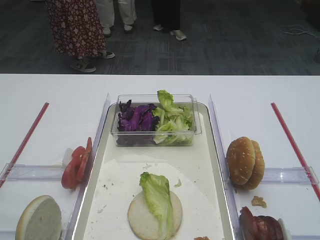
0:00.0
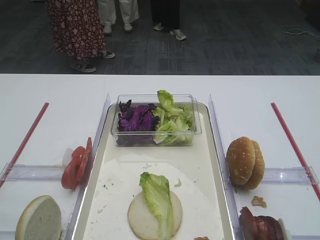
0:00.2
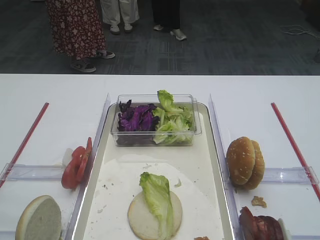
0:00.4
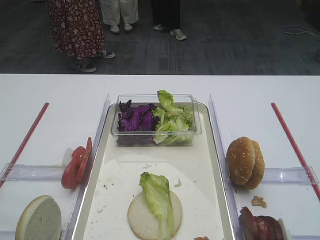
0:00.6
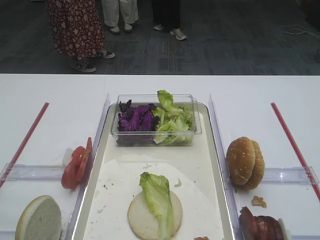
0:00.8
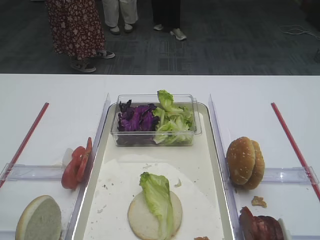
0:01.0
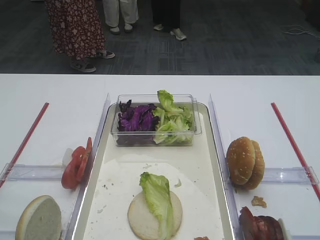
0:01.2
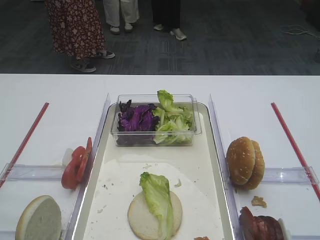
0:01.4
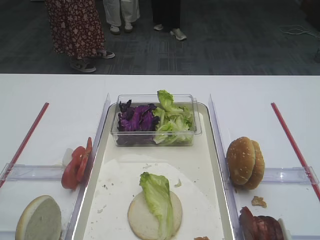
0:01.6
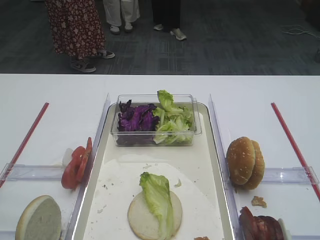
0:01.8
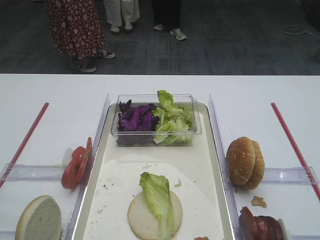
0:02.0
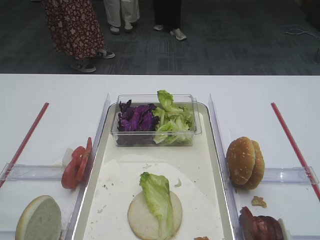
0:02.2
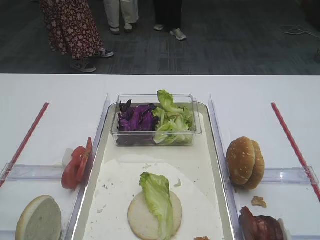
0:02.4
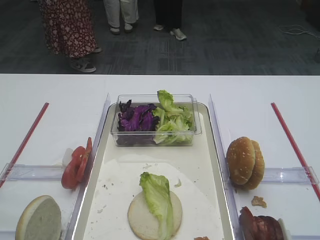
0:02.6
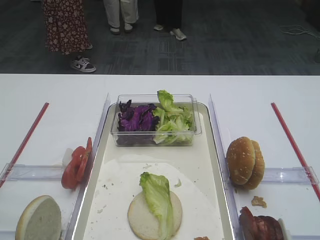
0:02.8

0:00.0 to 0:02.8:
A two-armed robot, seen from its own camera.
0:00.0 to 0:02.8: Both grippers stay about where they are.

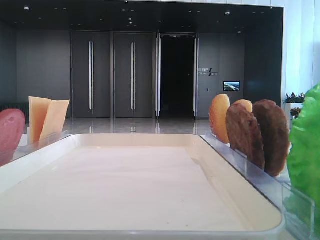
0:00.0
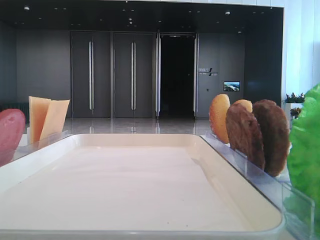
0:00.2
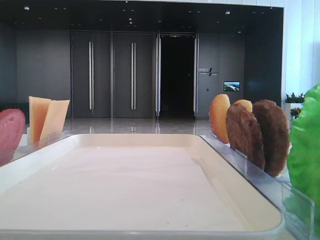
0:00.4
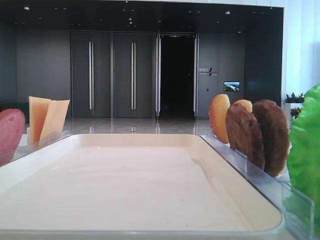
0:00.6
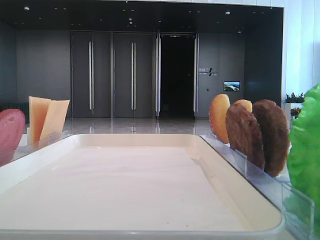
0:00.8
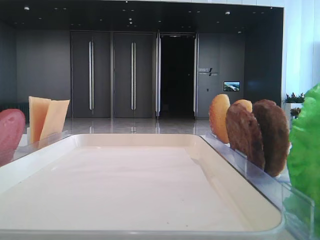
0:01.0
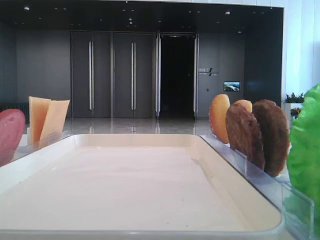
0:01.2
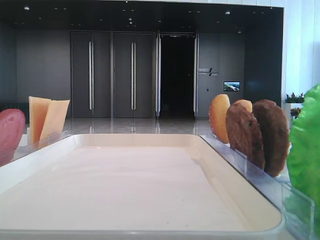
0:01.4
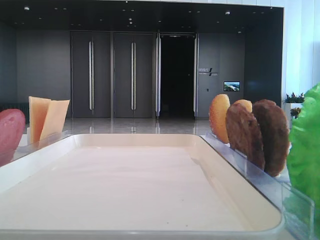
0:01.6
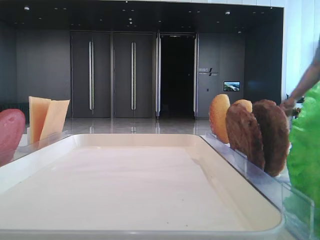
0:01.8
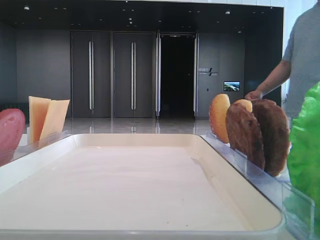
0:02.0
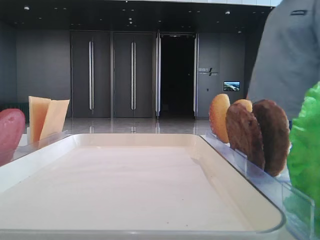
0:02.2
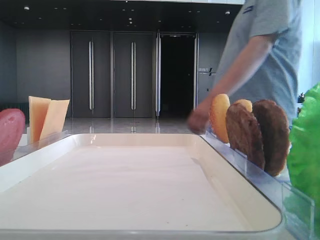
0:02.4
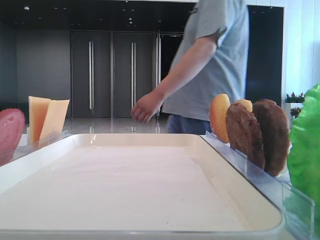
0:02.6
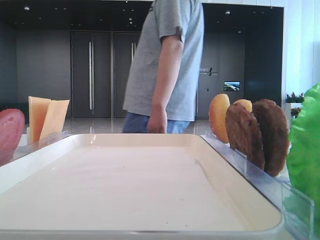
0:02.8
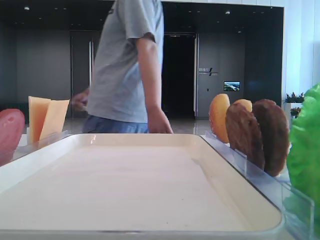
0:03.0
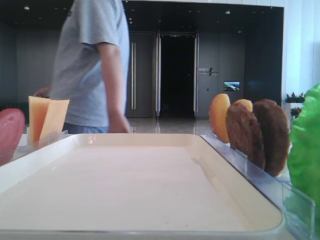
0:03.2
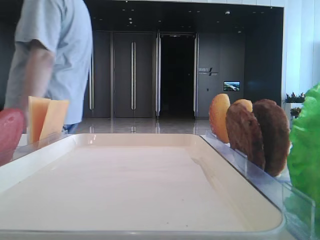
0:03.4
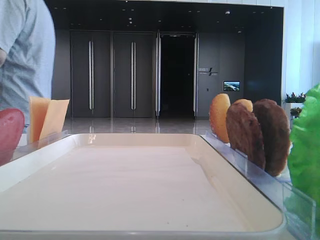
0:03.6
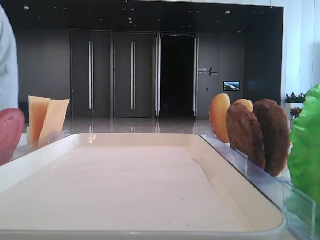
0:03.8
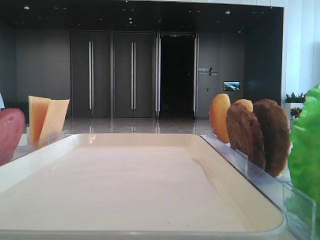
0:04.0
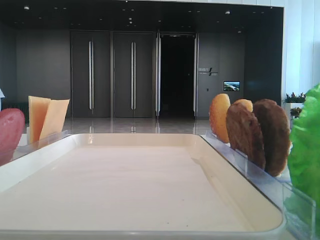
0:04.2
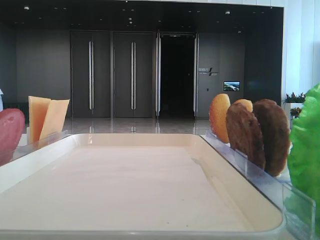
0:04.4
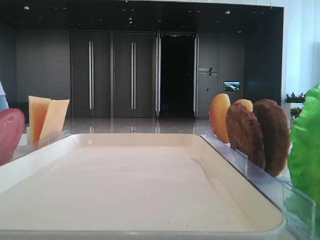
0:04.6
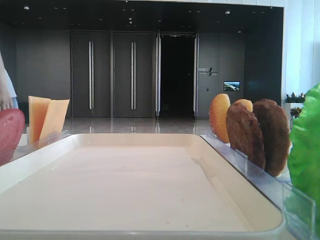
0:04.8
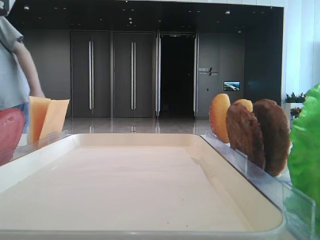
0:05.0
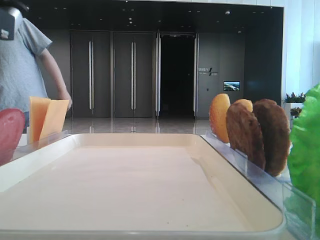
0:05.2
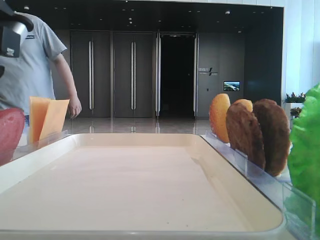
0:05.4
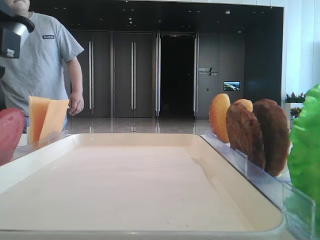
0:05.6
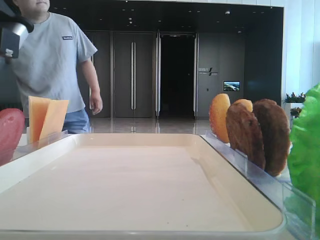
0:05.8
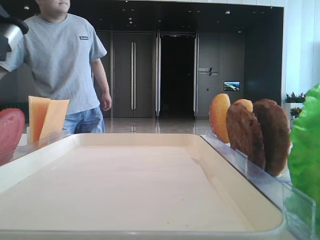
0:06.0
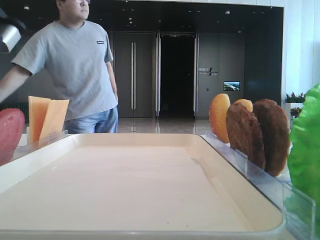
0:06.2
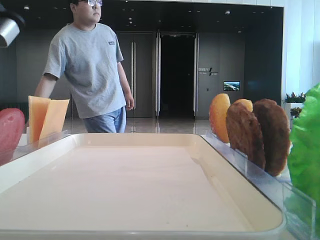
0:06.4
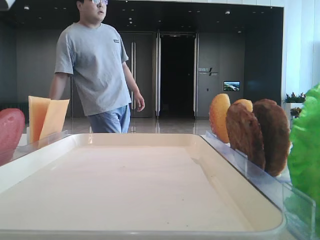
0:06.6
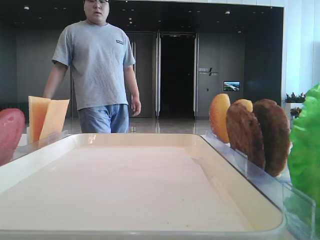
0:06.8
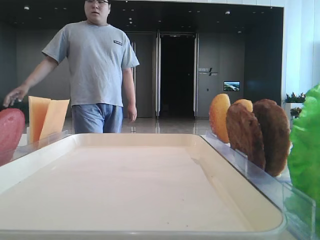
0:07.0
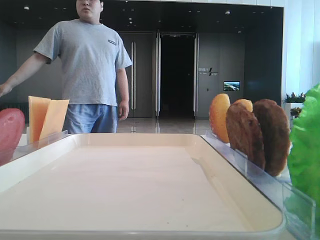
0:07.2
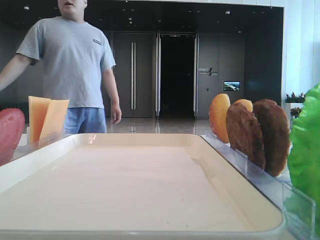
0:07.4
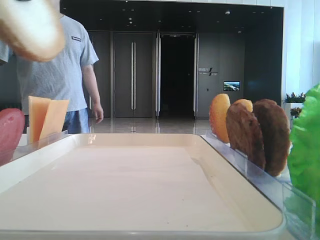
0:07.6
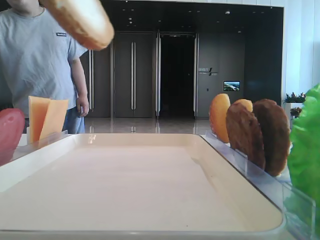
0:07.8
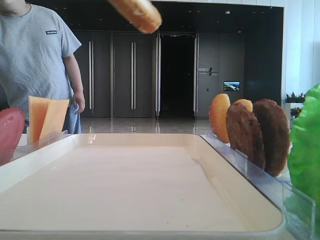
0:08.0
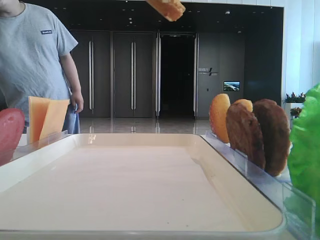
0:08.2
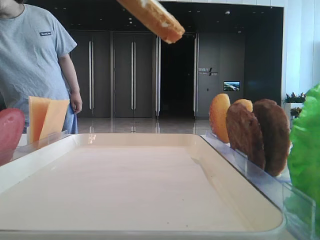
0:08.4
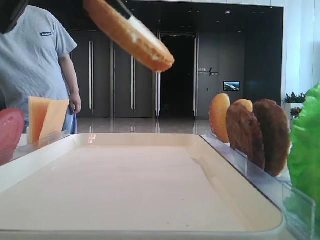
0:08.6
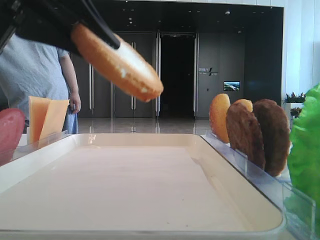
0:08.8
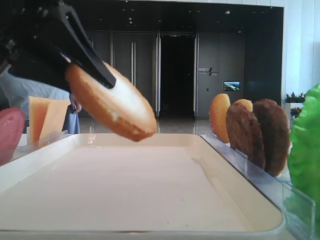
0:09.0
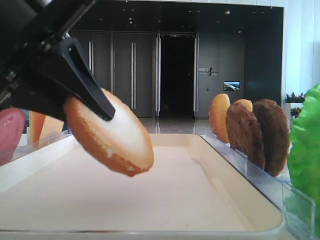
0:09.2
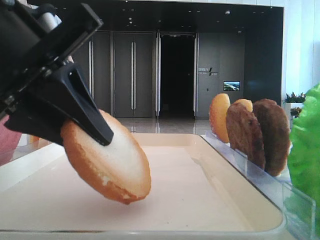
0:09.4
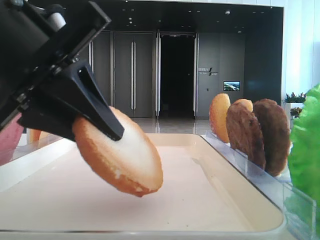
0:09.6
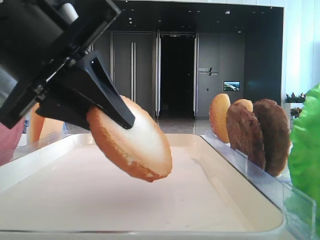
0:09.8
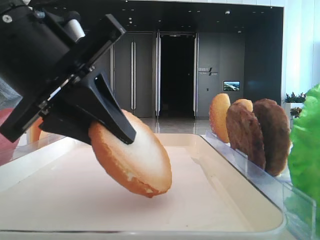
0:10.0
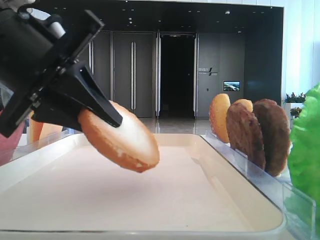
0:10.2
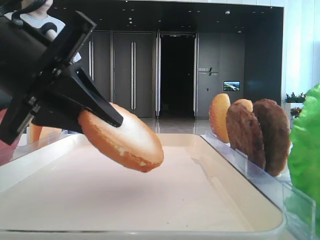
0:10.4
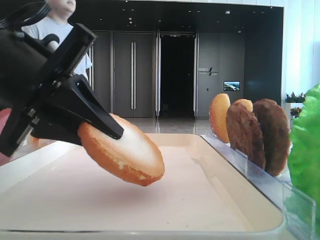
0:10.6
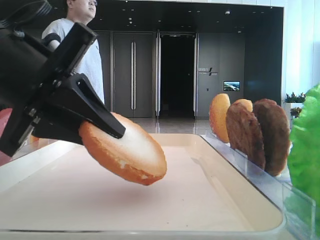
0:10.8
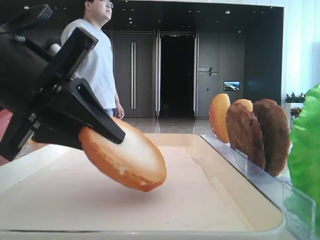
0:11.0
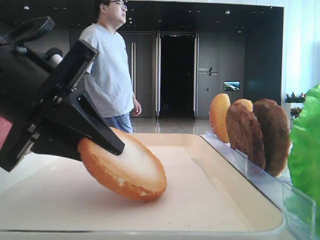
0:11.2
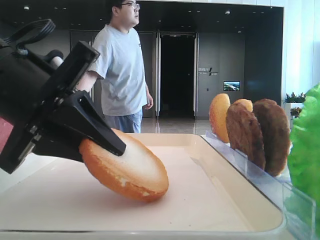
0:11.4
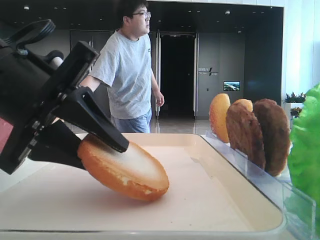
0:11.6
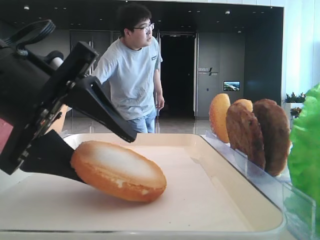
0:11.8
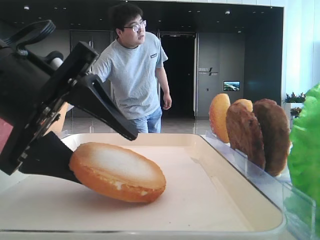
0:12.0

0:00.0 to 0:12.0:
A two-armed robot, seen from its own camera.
Step, 0:00.0 to 0:05.0: Pick up the bottom bread with the left hand.
0:01.6 to 0:03.0: The left gripper goes about 15 cm forward.
0:03.0 to 0:04.4: The left gripper goes approximately 10 cm to the right.
0:04.4 to 0:06.0: The left gripper moves downward, some 10 cm, and closes.
0:06.0 to 0:07.6: The left gripper is displaced upward by approximately 10 cm.
0:07.6 to 0:09.0: The left gripper heads downward, covering approximately 10 cm.
0:09.0 to 0:10.4: The left gripper ends up some 5 cm from where it was.
0:10.4 to 0:12.0: The left gripper opens.

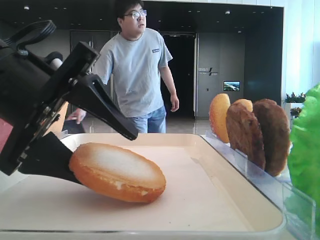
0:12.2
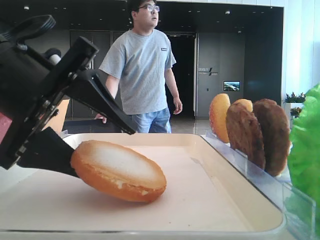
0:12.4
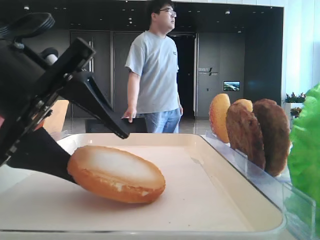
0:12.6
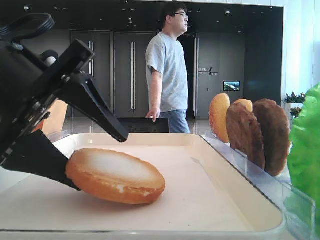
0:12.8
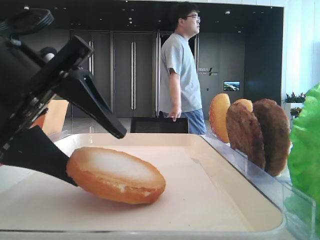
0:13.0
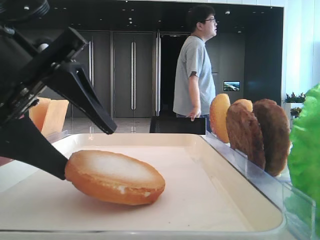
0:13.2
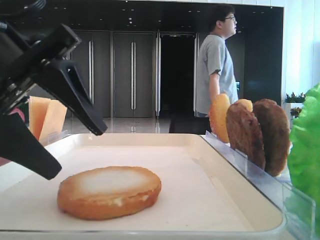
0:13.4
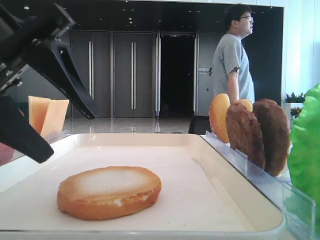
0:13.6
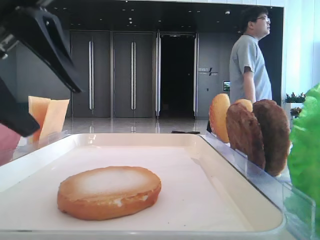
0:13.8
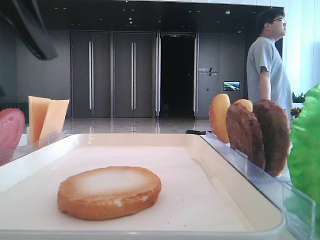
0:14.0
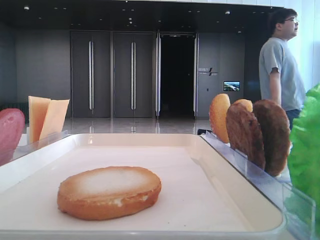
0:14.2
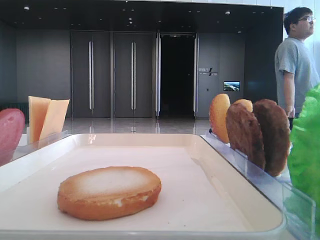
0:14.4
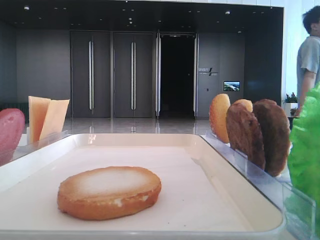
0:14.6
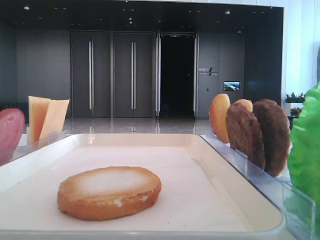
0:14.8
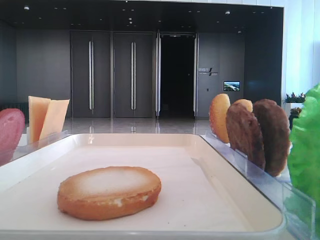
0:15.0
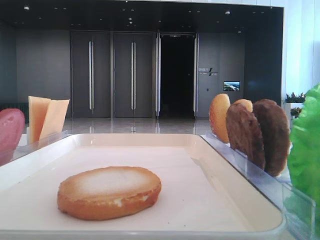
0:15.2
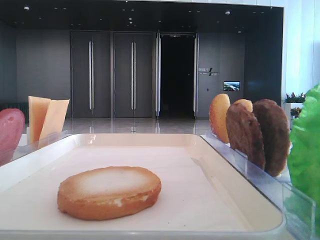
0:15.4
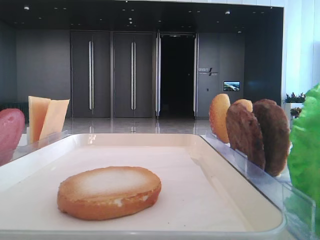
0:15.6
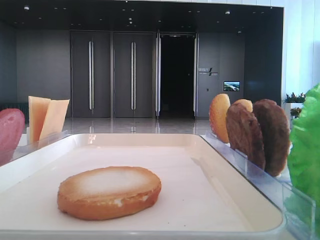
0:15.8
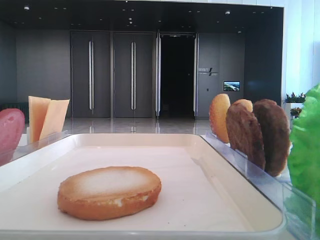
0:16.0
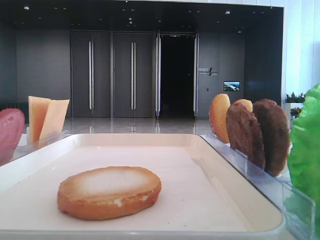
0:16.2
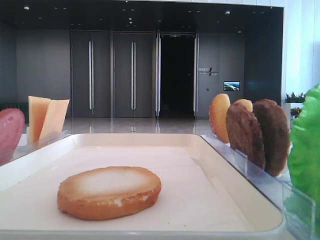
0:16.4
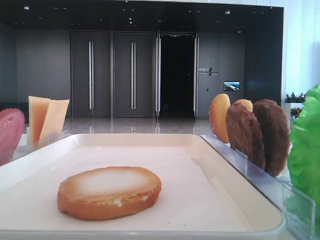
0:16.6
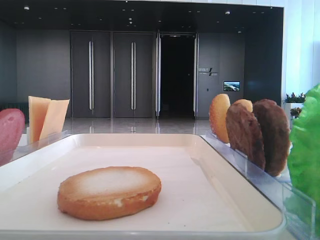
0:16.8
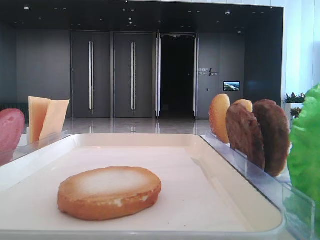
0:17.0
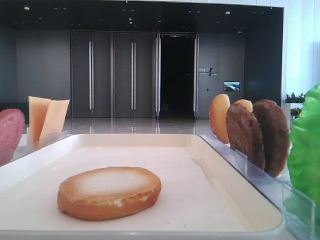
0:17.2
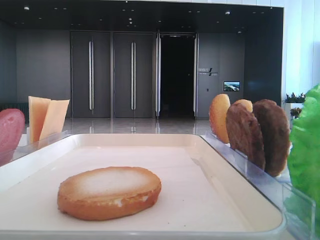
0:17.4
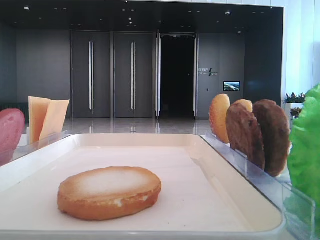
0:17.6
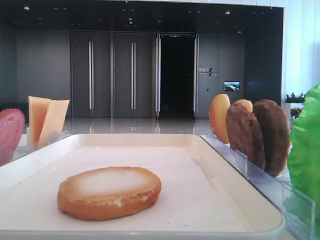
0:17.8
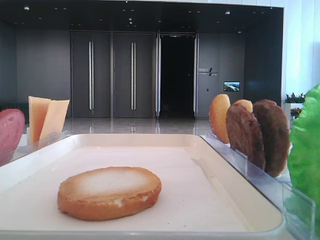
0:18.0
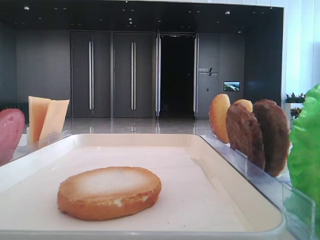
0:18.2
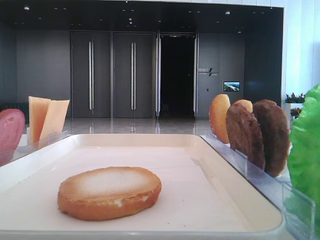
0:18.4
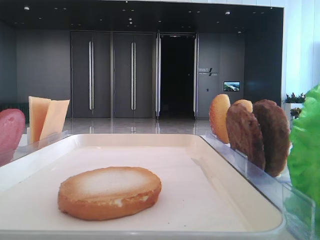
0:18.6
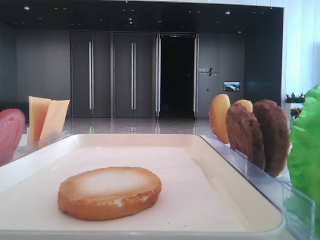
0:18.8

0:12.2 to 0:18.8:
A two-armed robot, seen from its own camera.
0:12.2 to 0:13.8: The left gripper is displaced upward by roughly 5 cm.
0:13.8 to 0:15.4: The left gripper travels upward, to the left and backward by approximately 15 cm.

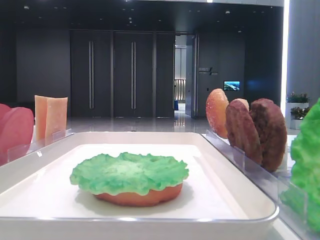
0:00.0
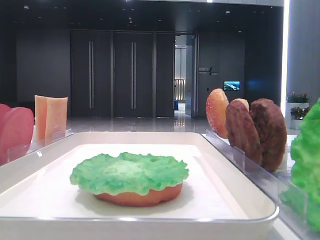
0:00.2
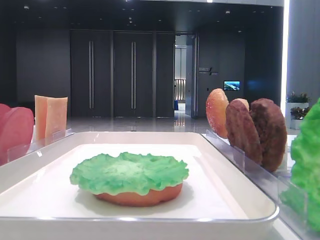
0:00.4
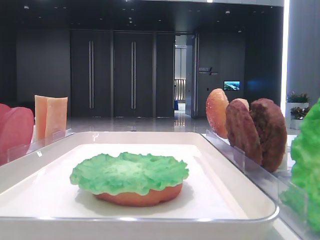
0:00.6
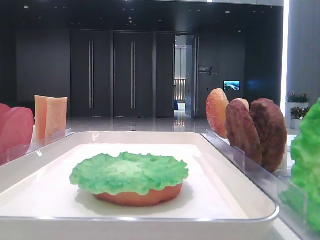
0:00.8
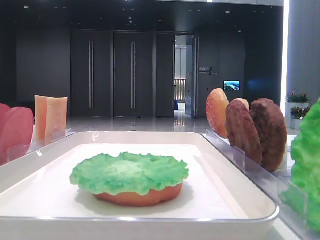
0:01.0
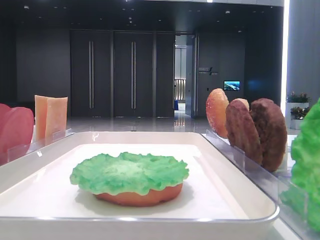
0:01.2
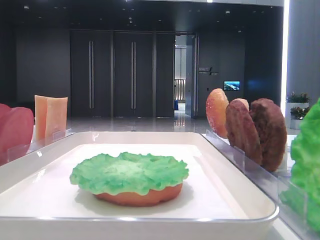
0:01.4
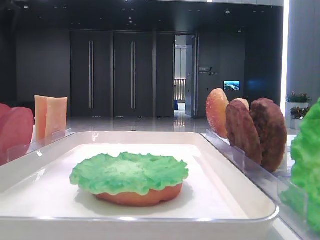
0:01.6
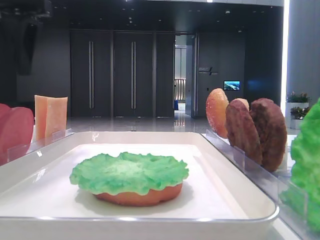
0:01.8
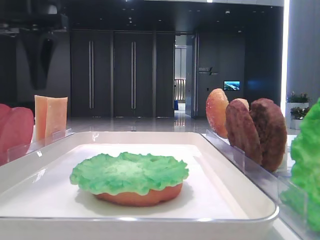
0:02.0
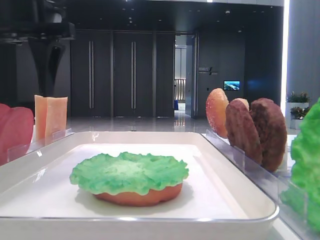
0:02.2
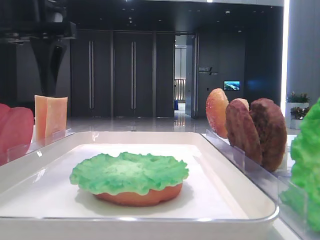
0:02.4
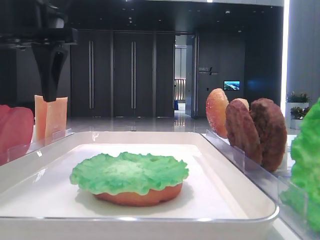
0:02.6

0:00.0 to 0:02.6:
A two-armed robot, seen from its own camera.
0:01.2 to 0:02.6: The left gripper is displaced to the right and downward by roughly 15 cm.
